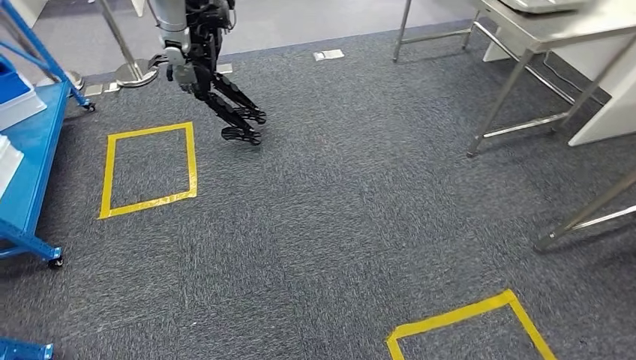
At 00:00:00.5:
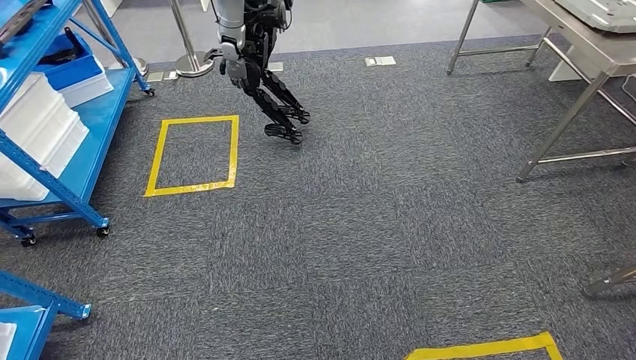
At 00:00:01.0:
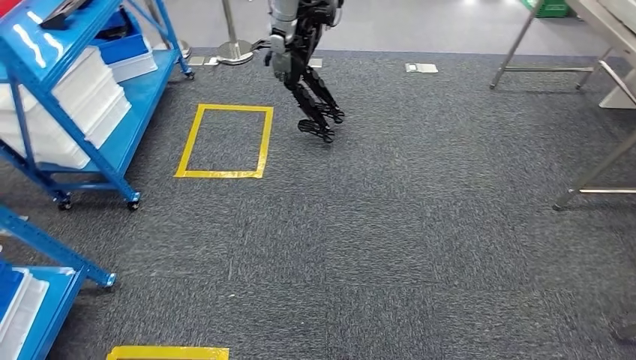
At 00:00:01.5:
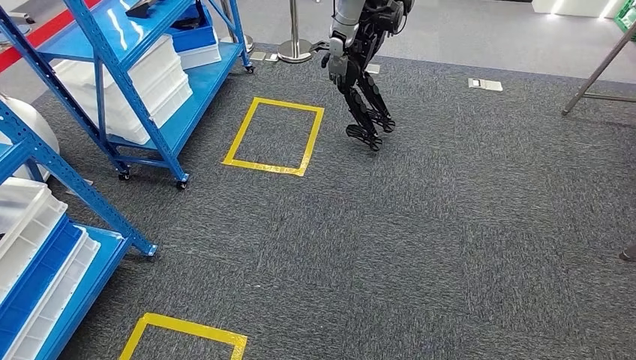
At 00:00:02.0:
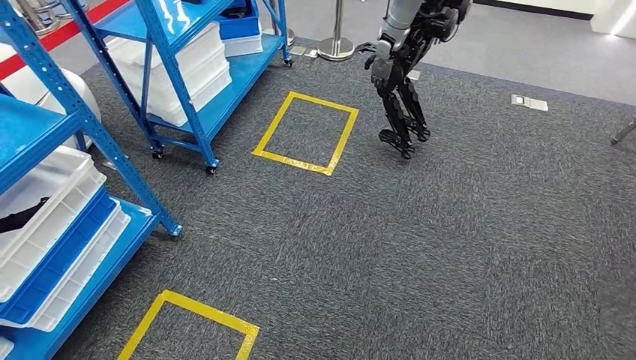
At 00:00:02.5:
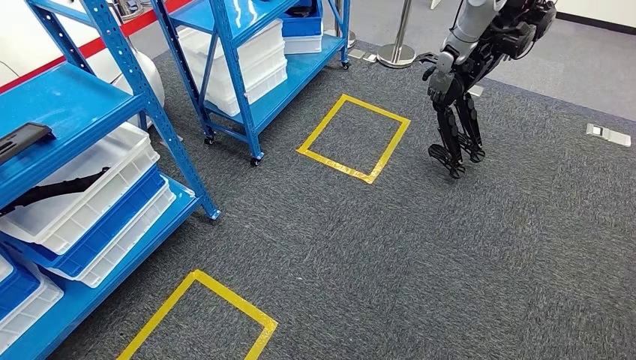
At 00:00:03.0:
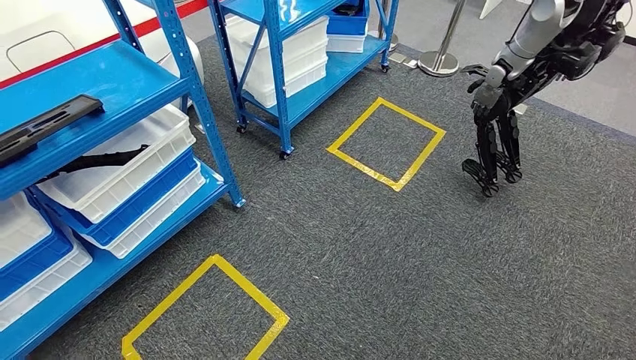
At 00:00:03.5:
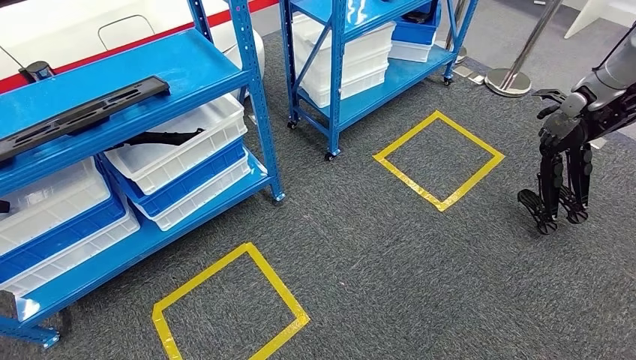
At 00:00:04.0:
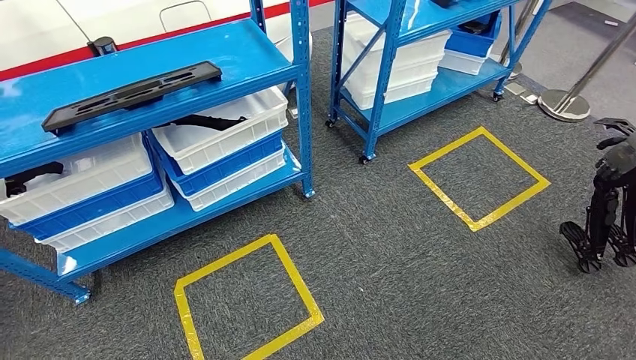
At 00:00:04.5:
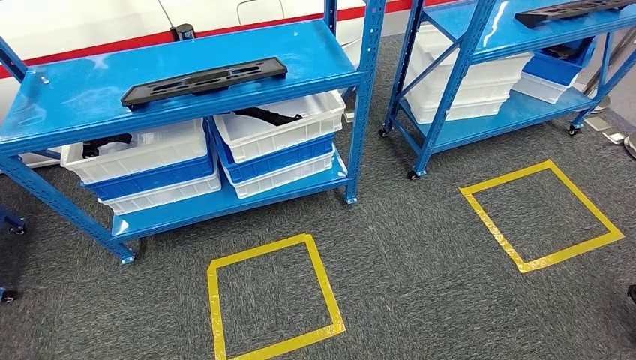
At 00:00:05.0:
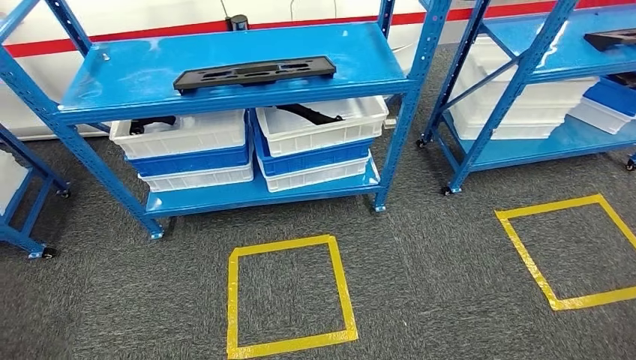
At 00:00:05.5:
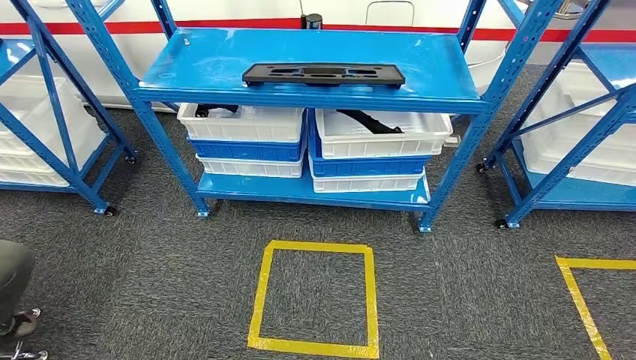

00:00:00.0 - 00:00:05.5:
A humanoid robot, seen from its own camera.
Step, 00:00:00.0 - 00:00:05.0: Move to the initial position of the shelf.
